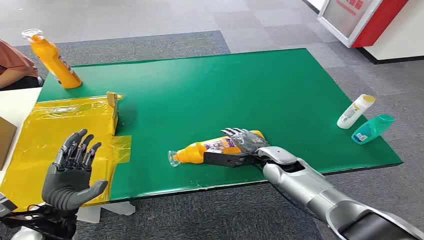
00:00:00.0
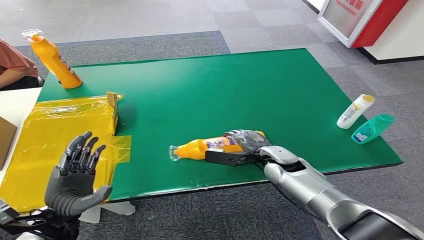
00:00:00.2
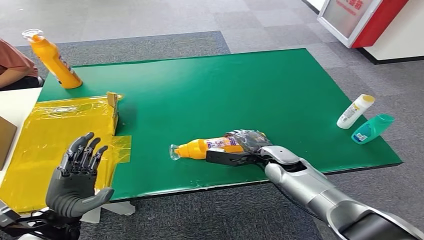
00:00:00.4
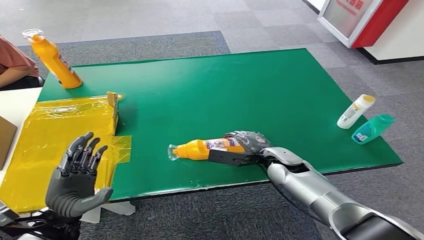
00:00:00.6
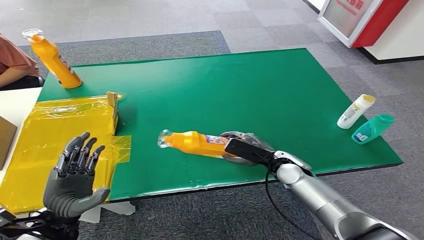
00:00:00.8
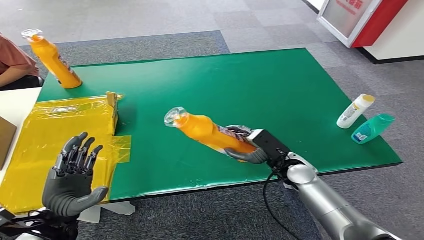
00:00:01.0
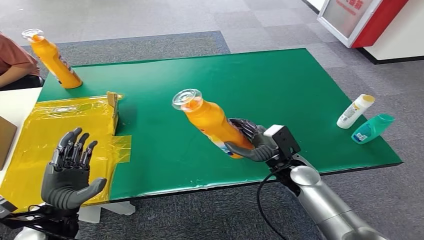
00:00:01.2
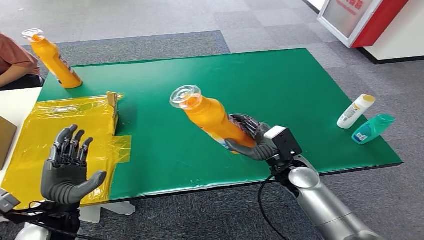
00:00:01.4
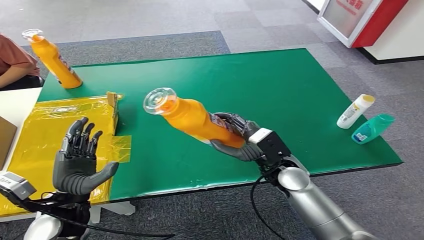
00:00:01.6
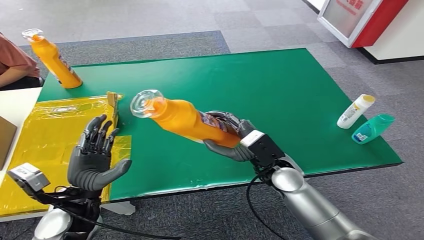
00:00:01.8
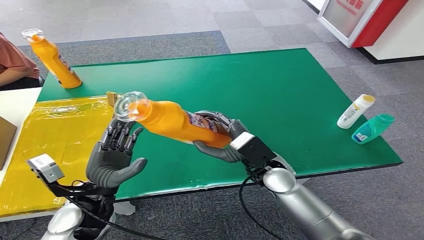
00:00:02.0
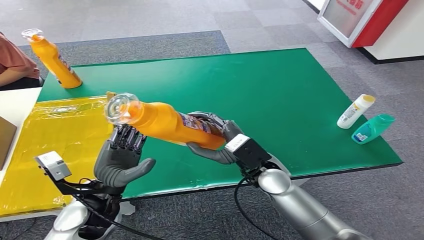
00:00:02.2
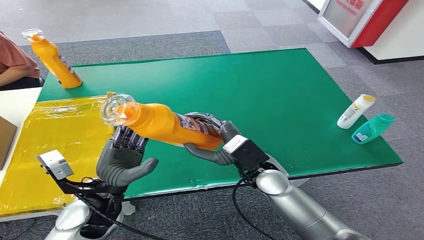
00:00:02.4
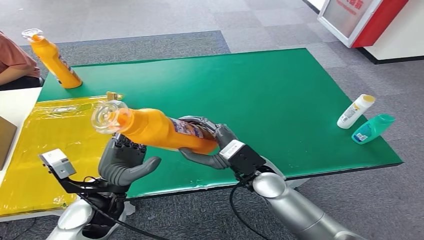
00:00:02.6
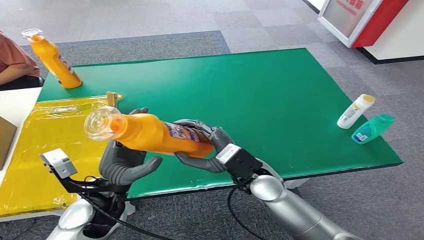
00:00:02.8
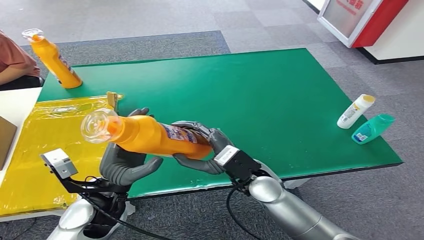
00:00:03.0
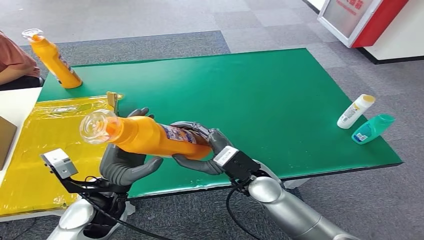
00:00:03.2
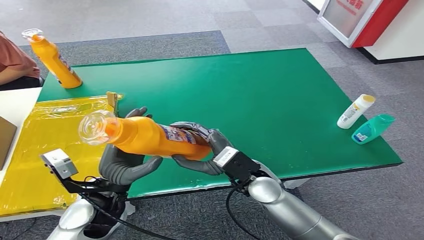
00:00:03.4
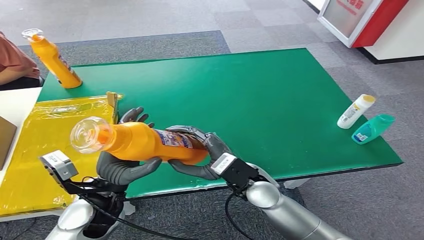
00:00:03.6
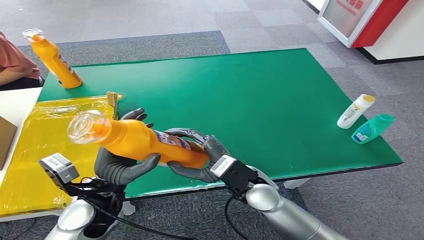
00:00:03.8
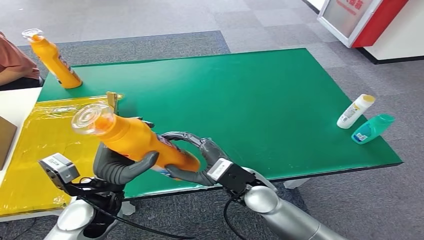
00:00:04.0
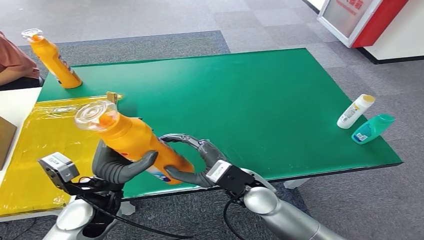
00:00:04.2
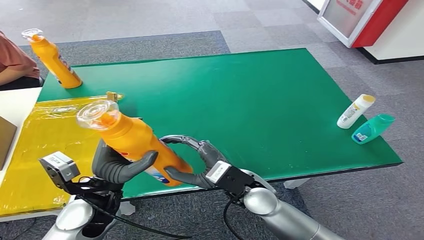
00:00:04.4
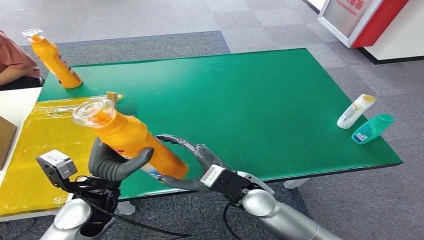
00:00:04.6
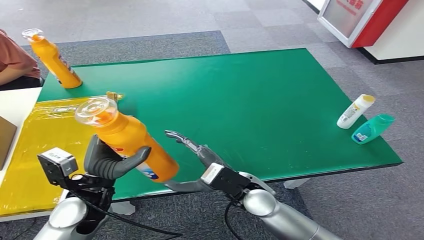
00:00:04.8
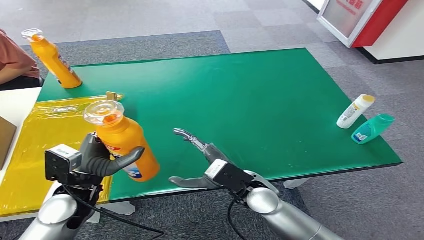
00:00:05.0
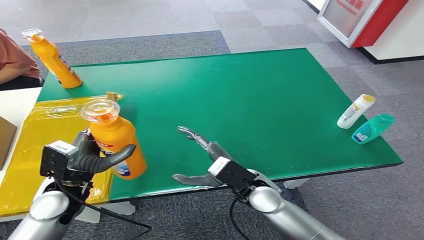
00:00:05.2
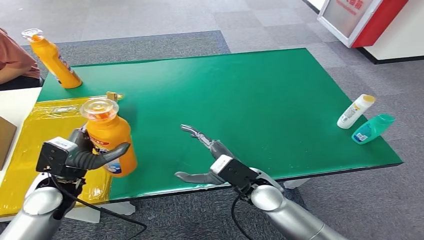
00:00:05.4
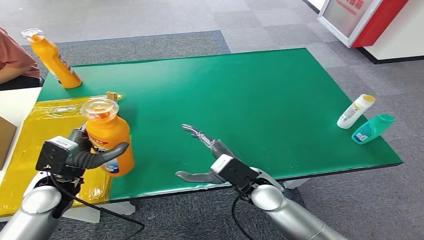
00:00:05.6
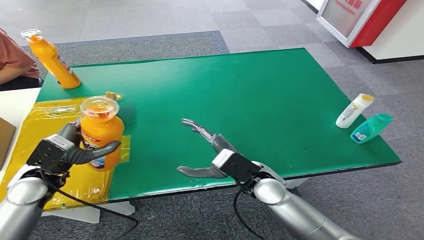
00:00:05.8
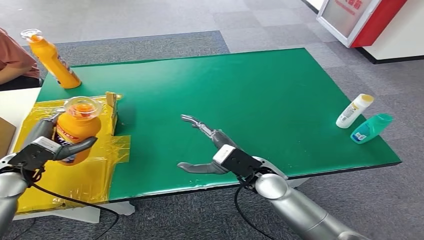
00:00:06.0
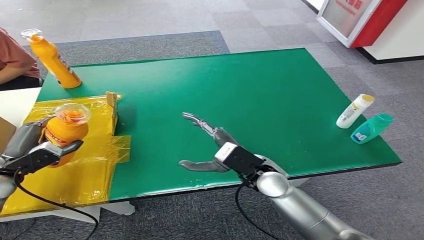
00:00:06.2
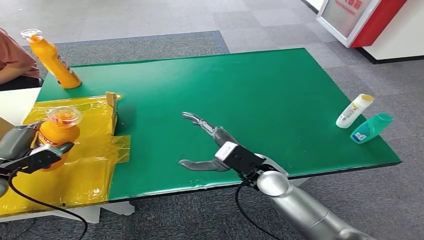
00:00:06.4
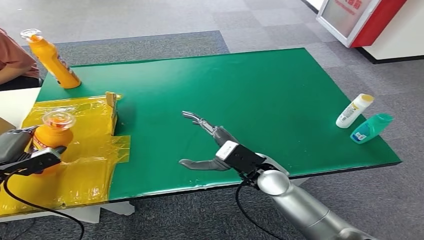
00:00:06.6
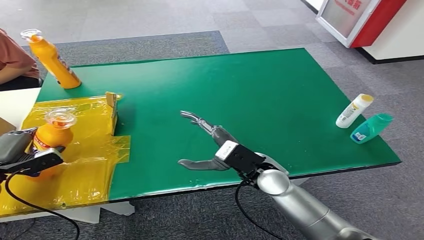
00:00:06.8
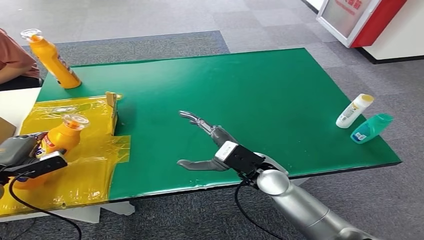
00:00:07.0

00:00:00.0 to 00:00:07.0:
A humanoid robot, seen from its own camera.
Step, 00:00:00.0 to 00:00:01.4: Pick up the bottle from the table.
Step, 00:00:01.6 to 00:00:07.0: Turn the bottle to the front side.
00:00:02.8 to 00:00:04.2: The hands move only a little.
00:00:04.2 to 00:00:05.6: The left hand shifts approximately 10 cm to the left.
00:00:05.6 to 00:00:07.0: The left hand travels to the left by about 20 cm.
